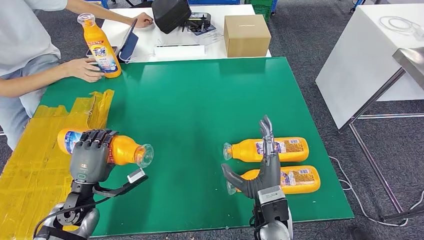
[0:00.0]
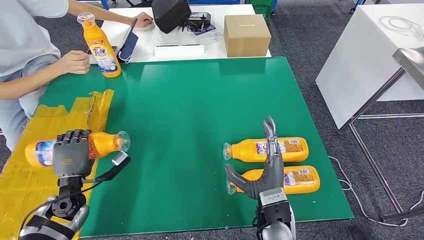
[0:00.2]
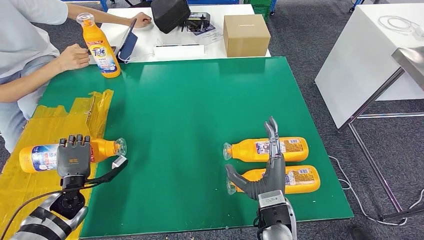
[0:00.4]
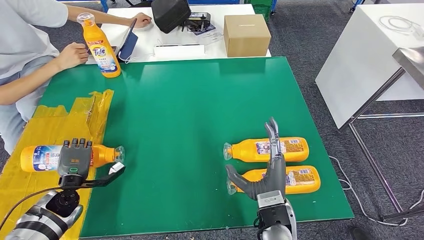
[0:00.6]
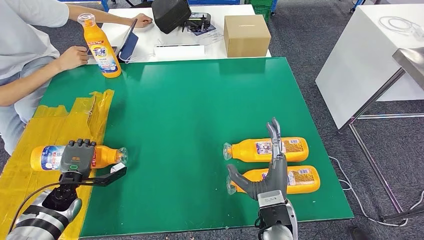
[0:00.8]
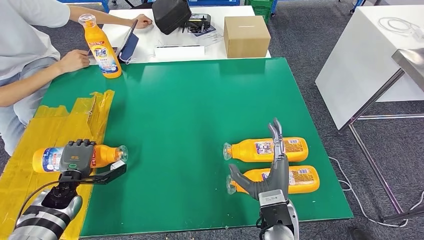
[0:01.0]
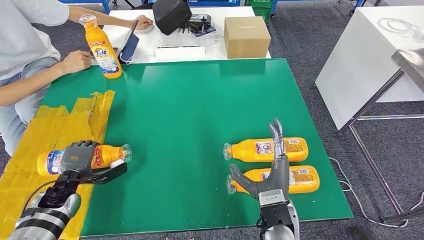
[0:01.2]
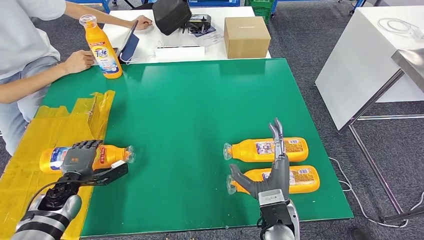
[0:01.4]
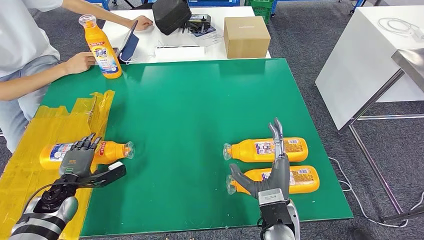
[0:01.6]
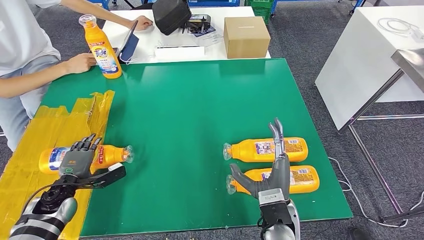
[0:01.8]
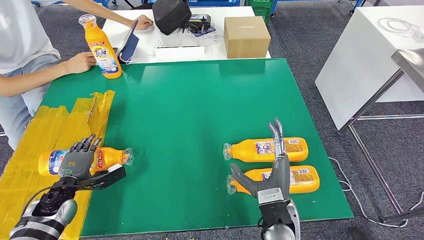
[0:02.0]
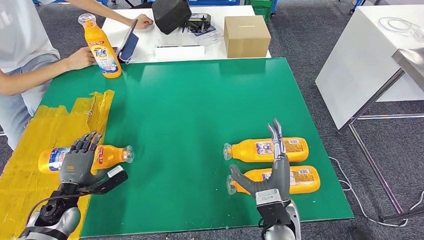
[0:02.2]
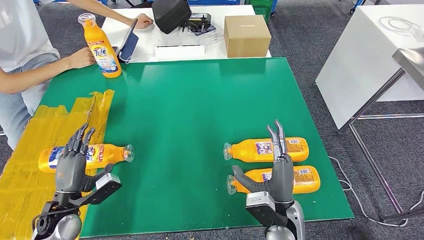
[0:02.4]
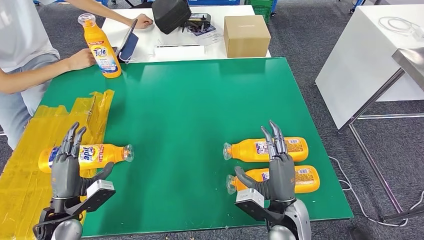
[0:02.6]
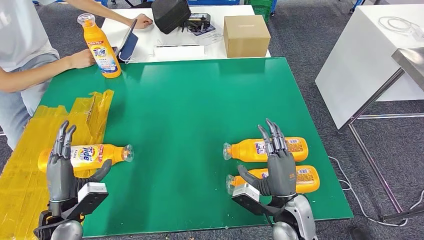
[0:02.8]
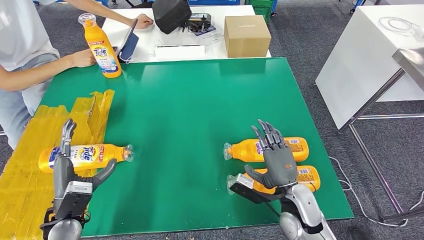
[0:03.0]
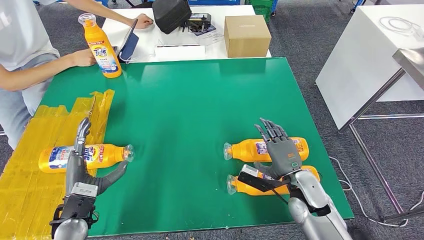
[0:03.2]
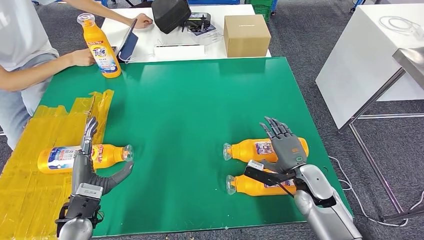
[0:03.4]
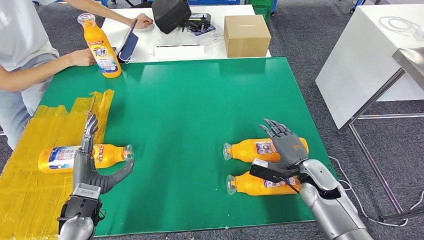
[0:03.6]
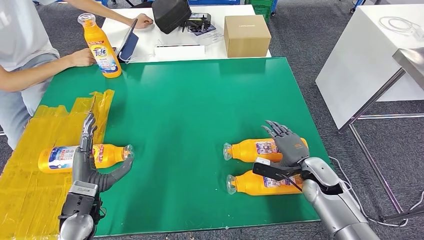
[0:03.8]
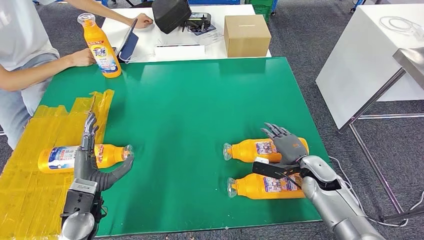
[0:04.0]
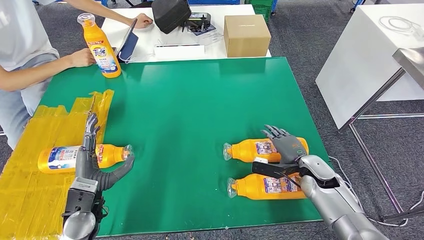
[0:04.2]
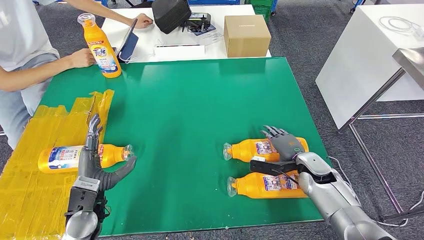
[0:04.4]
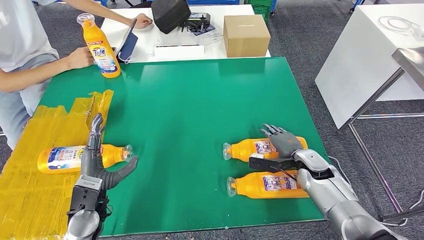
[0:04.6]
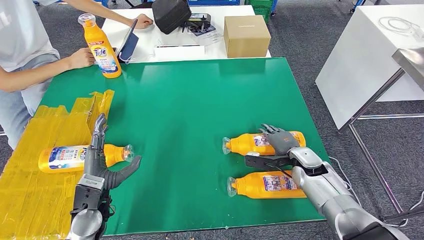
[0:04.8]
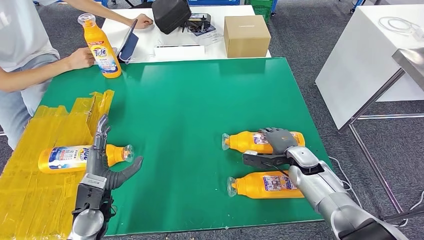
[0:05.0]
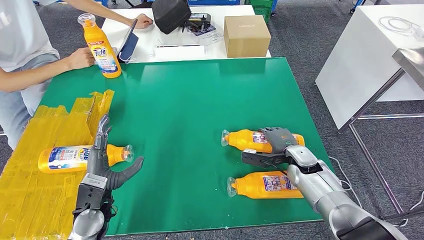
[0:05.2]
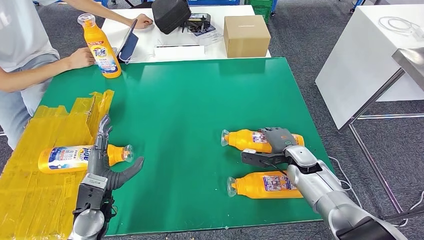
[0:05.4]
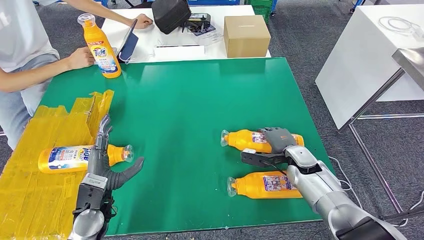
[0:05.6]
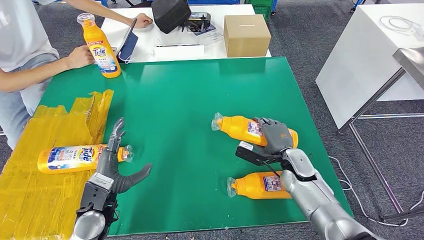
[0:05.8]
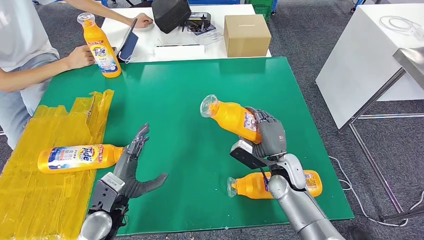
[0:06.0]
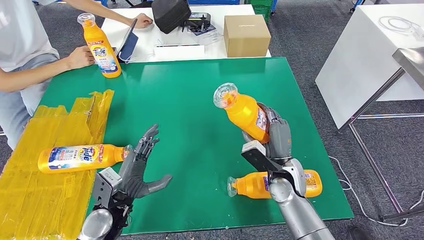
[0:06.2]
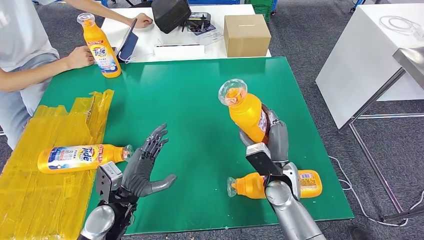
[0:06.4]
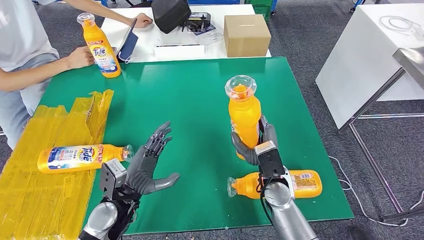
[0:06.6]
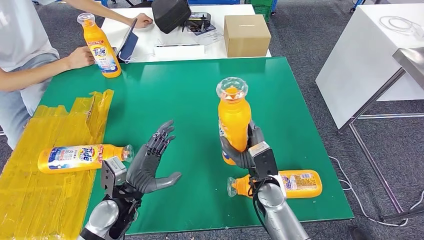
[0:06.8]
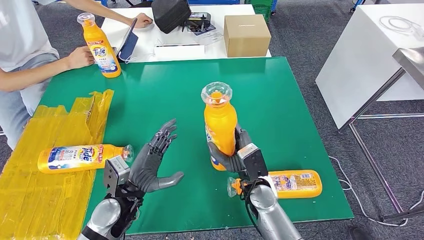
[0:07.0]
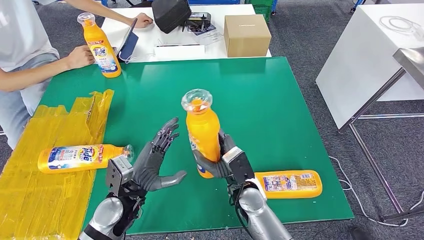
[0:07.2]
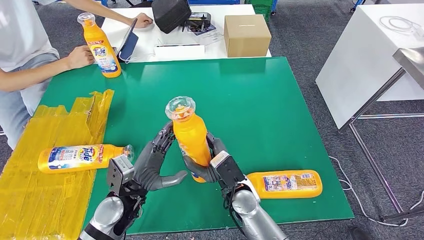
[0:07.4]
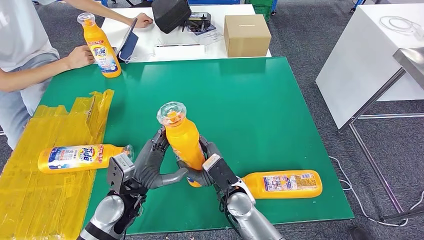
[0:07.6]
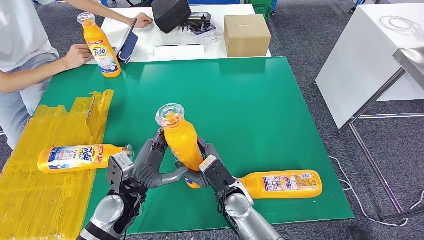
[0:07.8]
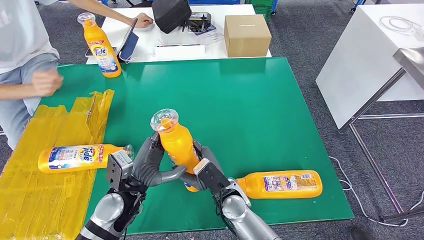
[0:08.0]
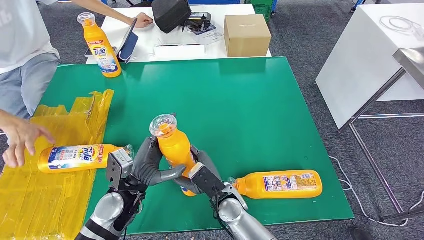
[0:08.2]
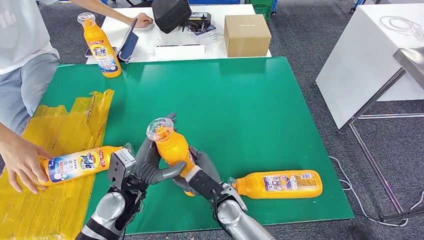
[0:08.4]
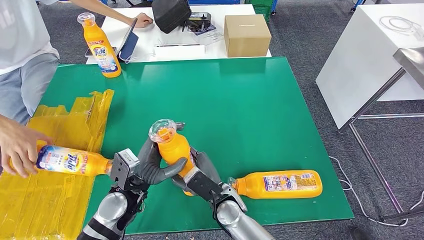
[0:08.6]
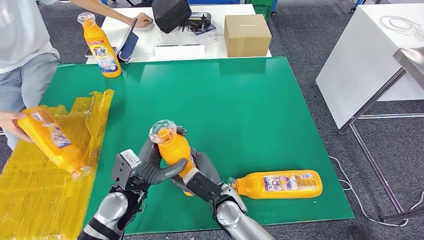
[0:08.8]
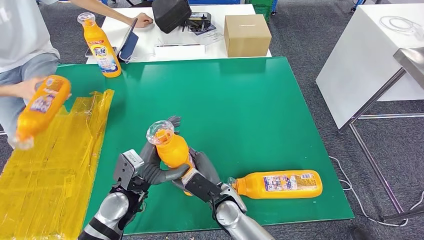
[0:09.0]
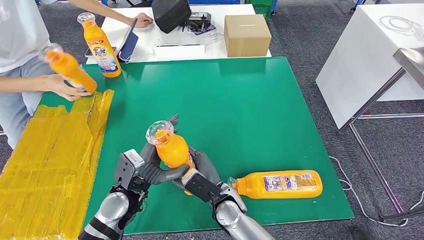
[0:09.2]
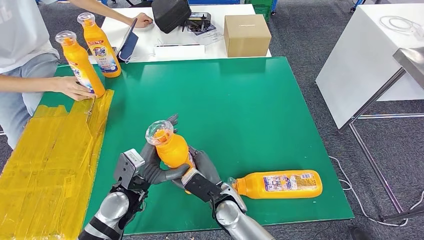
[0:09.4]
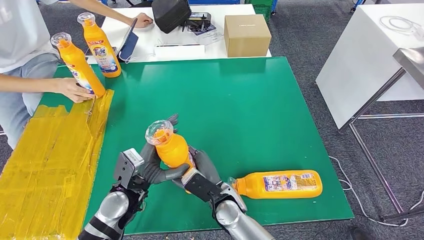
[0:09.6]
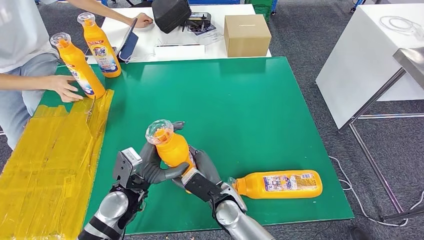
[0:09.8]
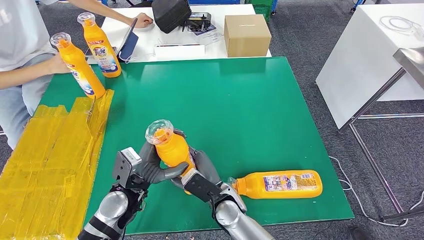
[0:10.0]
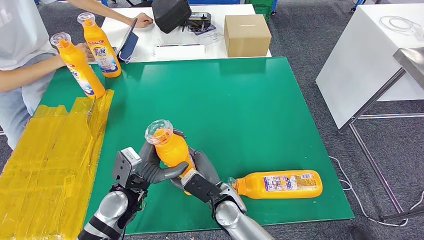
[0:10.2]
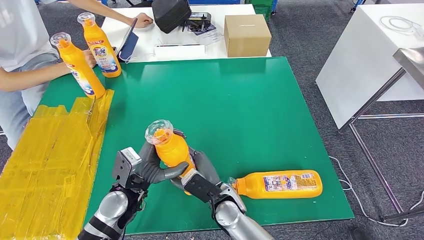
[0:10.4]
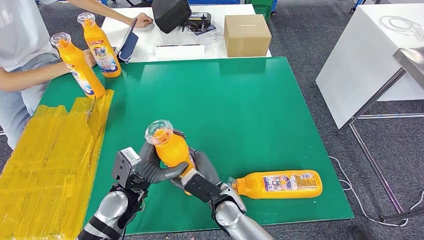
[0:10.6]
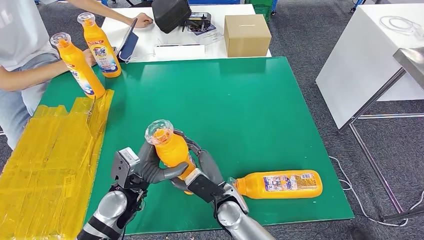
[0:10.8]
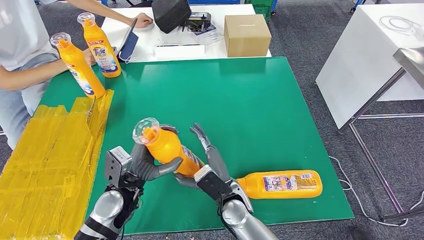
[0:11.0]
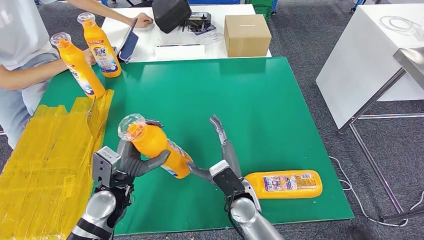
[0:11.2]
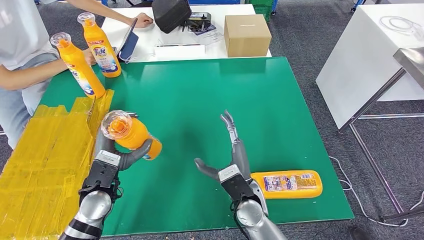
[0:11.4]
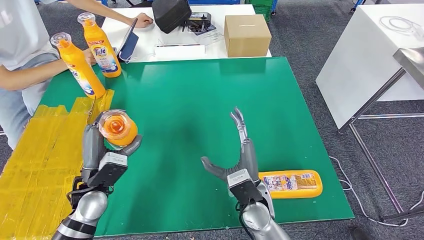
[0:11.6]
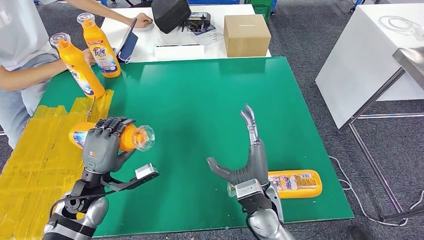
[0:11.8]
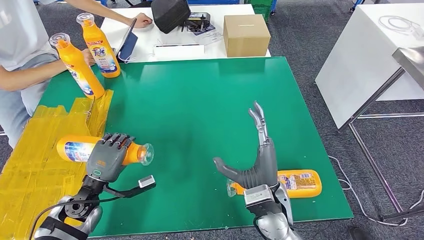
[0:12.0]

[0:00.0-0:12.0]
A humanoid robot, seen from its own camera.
Step, 0:00.0 to 0:02.2: Flip the bottle to face forward.
Step, 0:02.6 to 0:06.2: Pick up the bottle from the table.
0:01.6 to 0:03.0: The left hand travels backward, to the right and upward by approximately 10 cm. Meanwhile the right hand shifts roughly 5 cm to the right.
0:03.0 to 0:04.4: The right hand shifts approximately 15 cm forward and to the right.
0:04.4 to 0:06.0: The right hand travels to the left by about 10 cm.
0:06.0 to 0:07.6: The right hand shifts about 15 cm to the left; the left hand ends up some 5 cm from where it was.
0:07.6 to 0:09.0: The hands move only a little.
0:09.0 to 0:10.4: Both hands stay about where they are.
0:10.4 to 0:12.0: The right hand goes about 10 cm to the right and upward. Meanwhile the left hand moves to the left, roughly 10 cm.

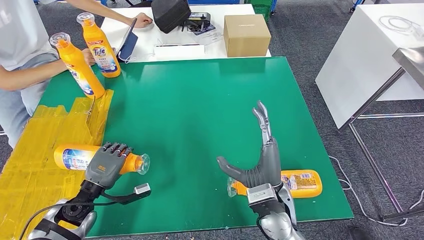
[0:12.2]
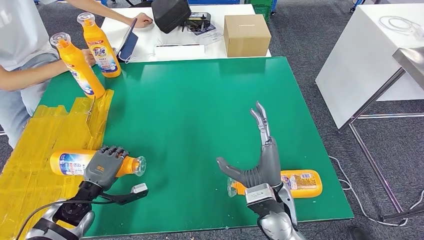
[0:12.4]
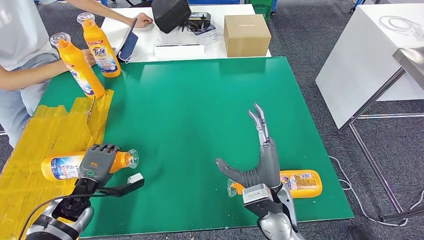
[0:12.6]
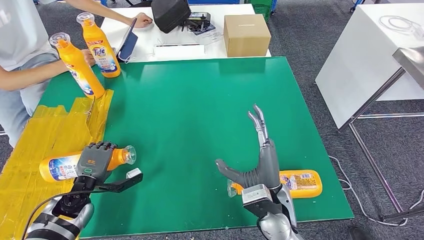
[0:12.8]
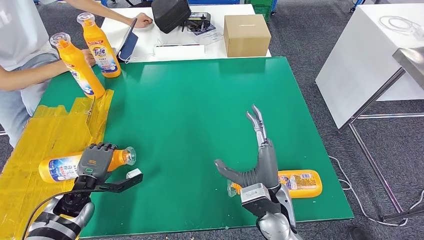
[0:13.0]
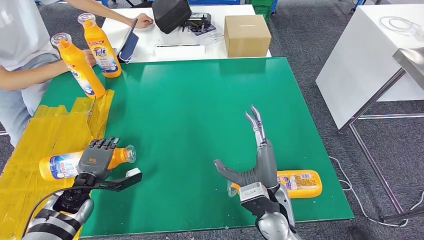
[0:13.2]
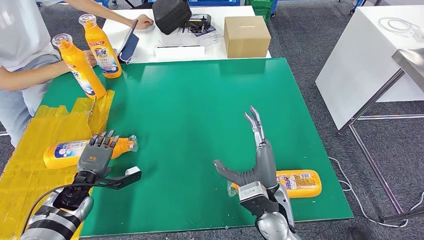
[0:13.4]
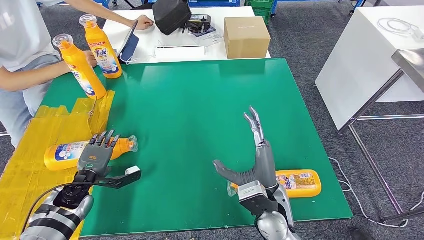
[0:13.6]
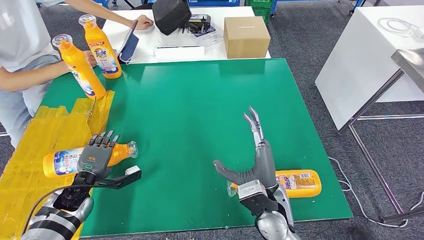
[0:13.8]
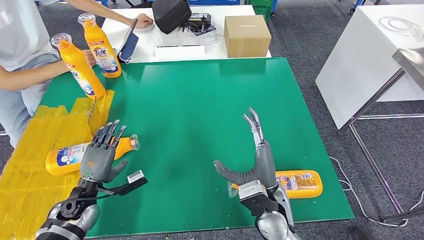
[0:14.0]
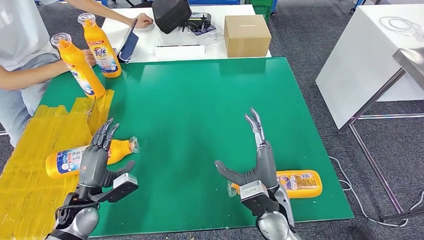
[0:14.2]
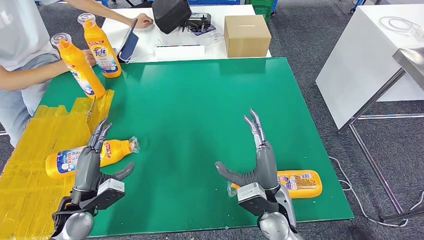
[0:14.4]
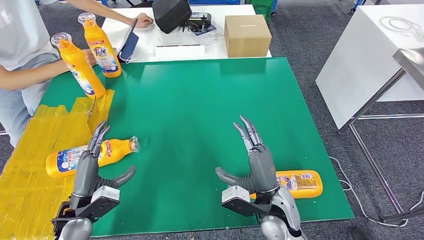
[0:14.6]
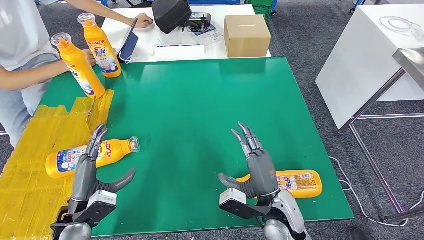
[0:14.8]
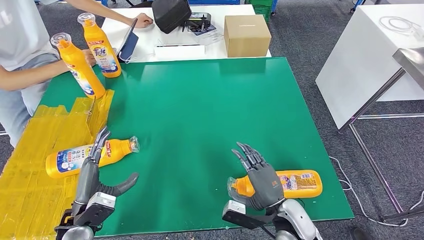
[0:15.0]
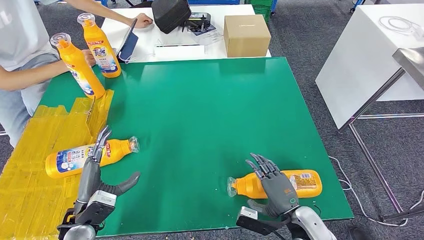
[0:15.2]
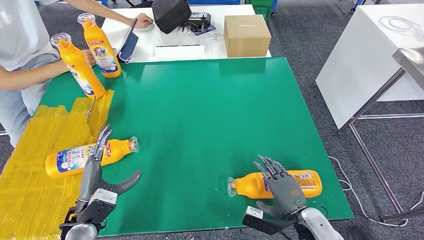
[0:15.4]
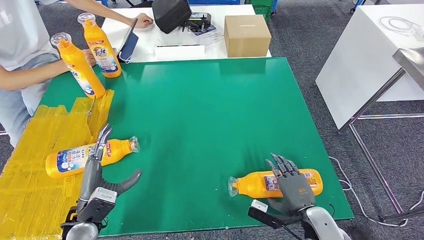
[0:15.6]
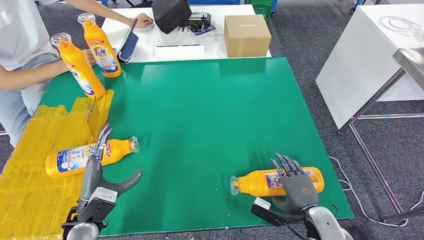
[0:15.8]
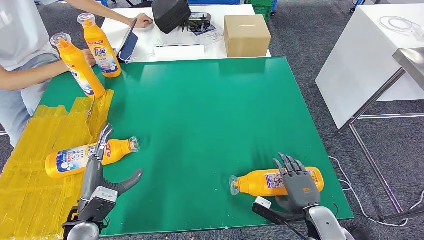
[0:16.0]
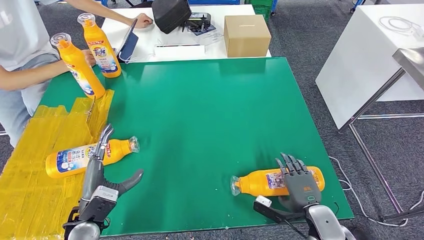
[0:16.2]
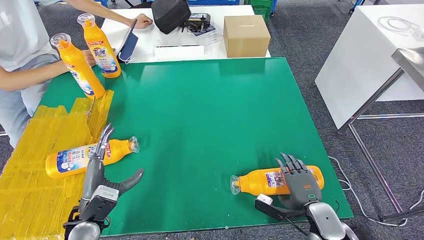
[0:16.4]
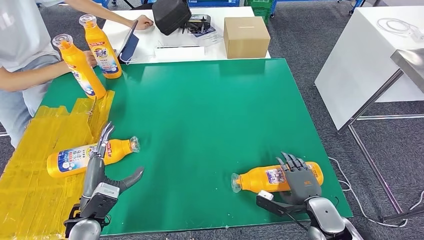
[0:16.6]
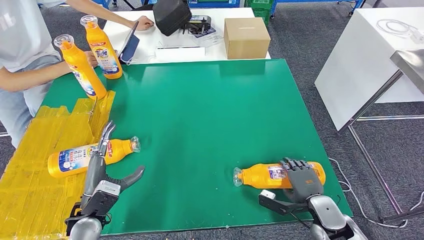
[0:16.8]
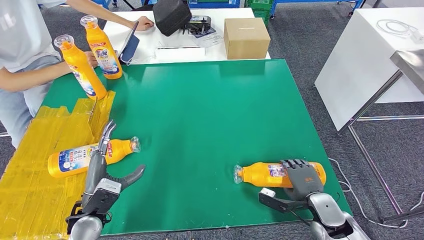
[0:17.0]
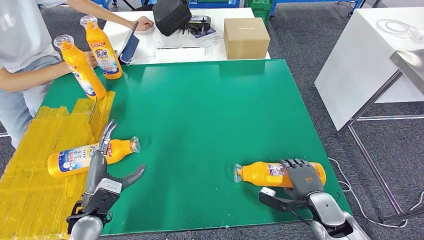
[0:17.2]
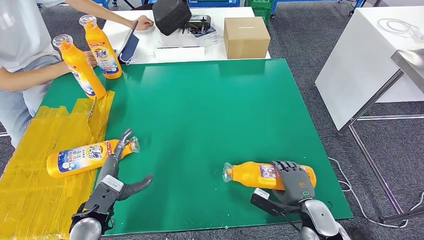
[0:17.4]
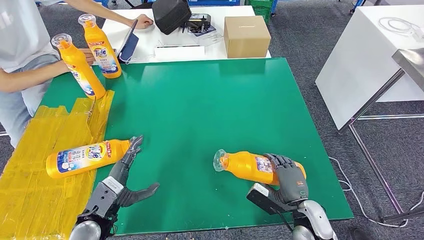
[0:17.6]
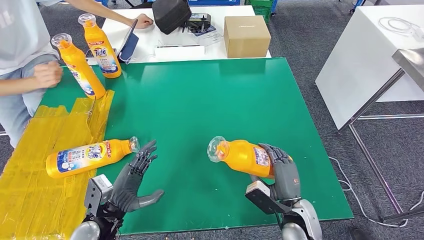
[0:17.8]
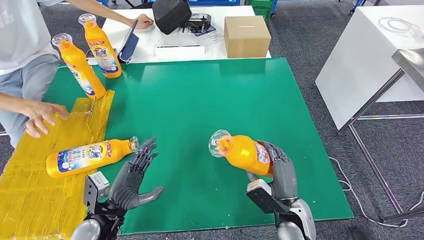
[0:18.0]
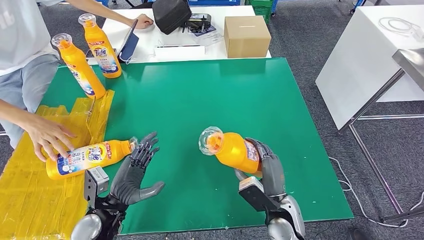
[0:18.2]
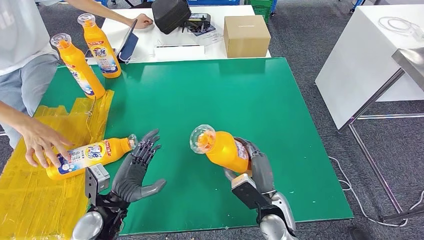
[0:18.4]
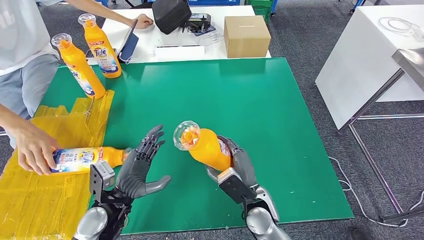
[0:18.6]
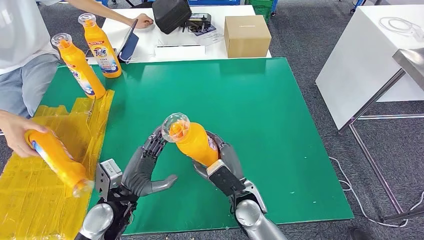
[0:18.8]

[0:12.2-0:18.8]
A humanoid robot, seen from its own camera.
Step, 0:12.2 to 0:14.6: Flip the bottle to face forward.
0:13.8 to 0:15.4: The right hand heads to the right and downward, covering roughly 15 cm. Meanwhile the left hand is displaced backward and to the right by about 10 cm.
0:15.4 to 0:17.2: The right hand heads to the right, covering approximately 5 cm.
